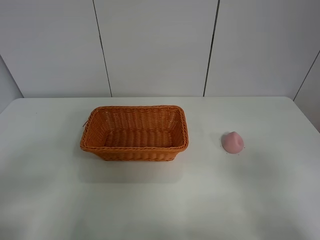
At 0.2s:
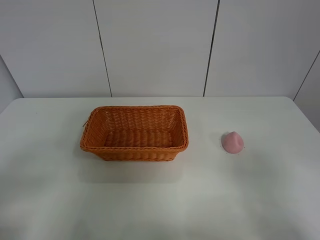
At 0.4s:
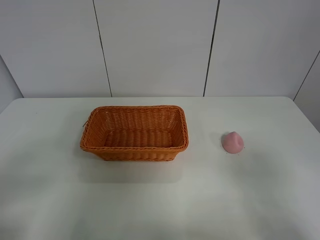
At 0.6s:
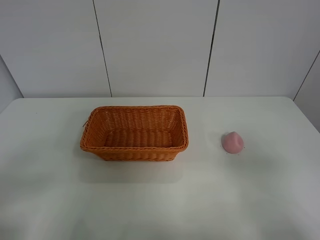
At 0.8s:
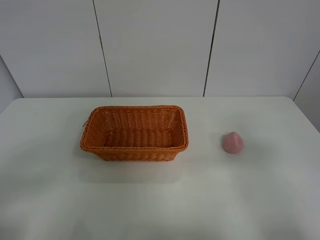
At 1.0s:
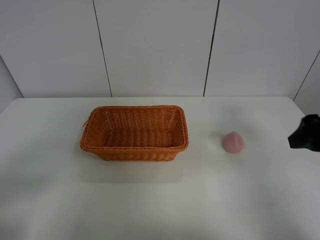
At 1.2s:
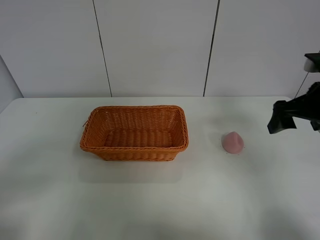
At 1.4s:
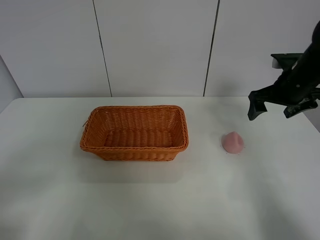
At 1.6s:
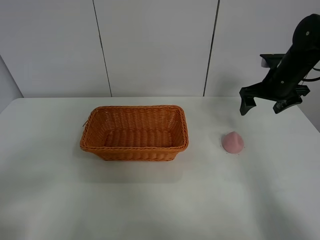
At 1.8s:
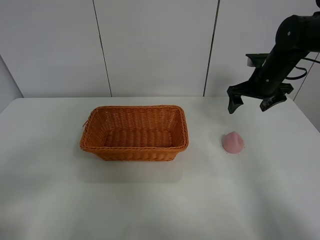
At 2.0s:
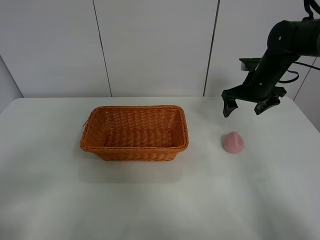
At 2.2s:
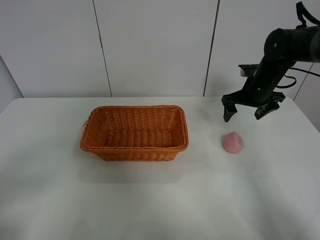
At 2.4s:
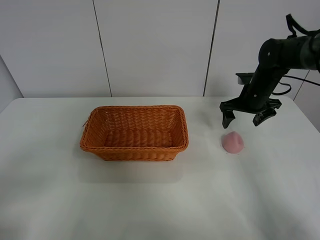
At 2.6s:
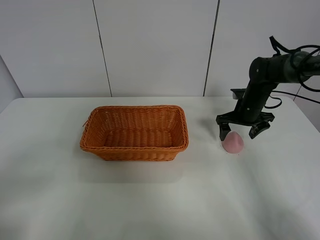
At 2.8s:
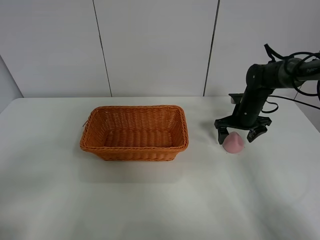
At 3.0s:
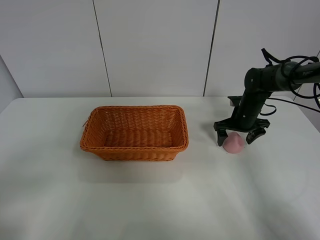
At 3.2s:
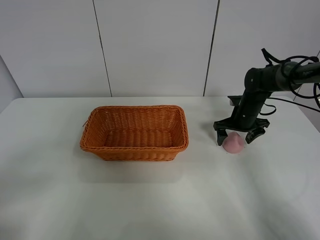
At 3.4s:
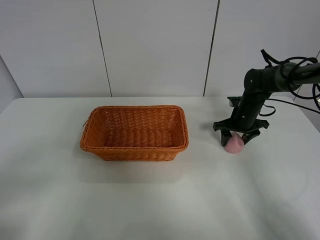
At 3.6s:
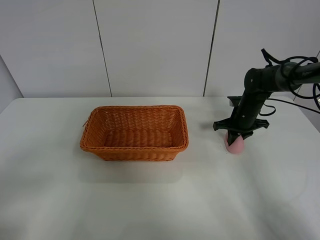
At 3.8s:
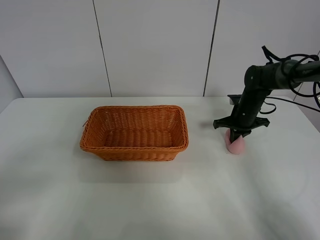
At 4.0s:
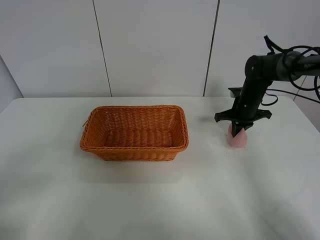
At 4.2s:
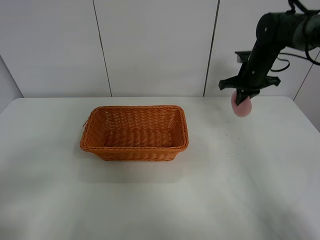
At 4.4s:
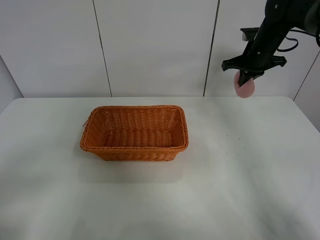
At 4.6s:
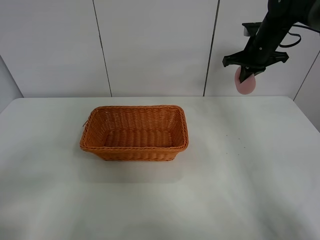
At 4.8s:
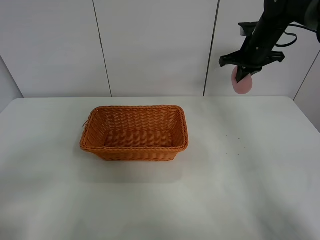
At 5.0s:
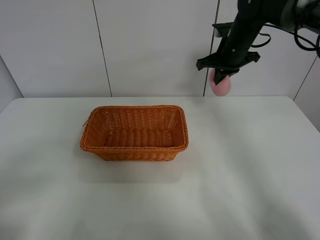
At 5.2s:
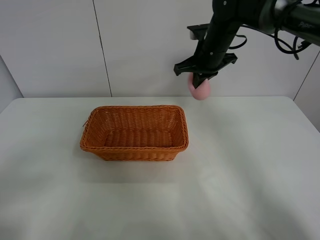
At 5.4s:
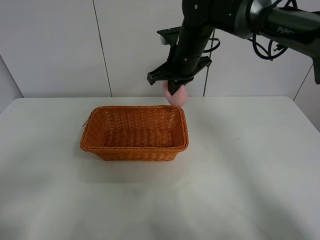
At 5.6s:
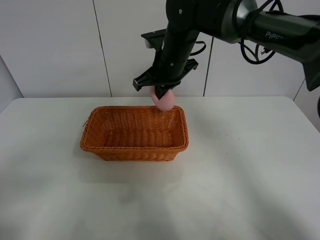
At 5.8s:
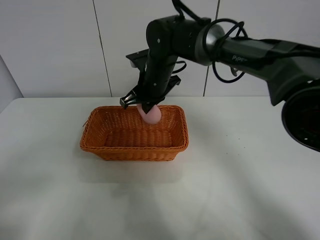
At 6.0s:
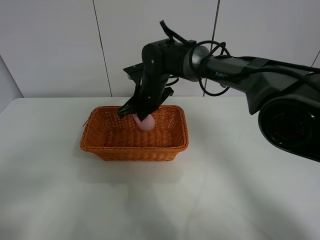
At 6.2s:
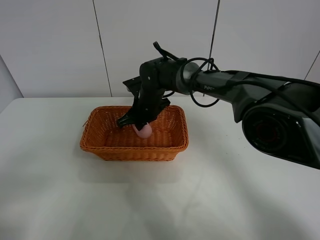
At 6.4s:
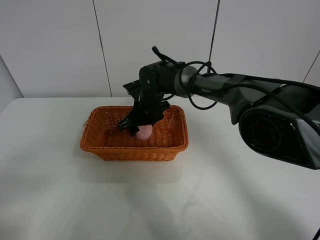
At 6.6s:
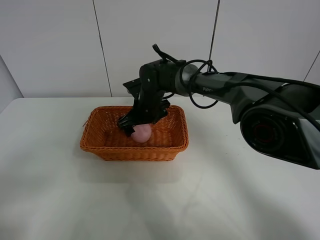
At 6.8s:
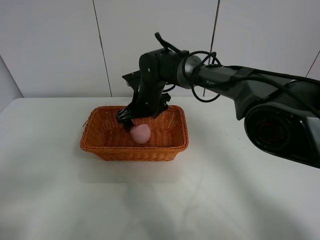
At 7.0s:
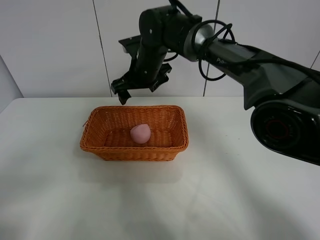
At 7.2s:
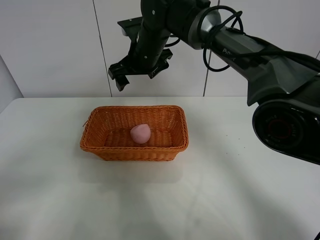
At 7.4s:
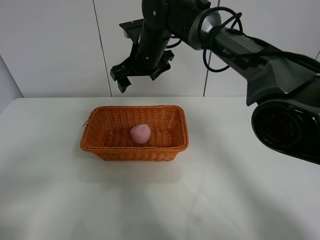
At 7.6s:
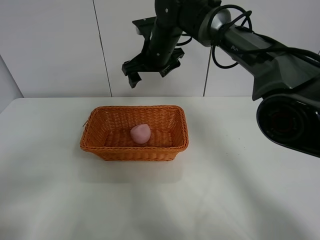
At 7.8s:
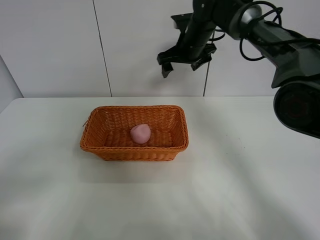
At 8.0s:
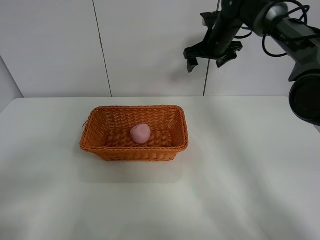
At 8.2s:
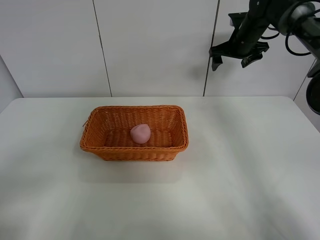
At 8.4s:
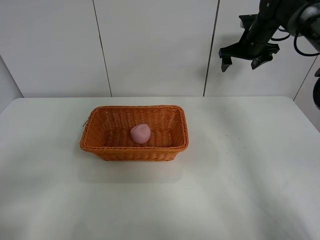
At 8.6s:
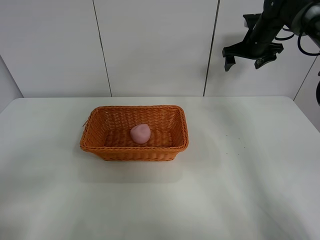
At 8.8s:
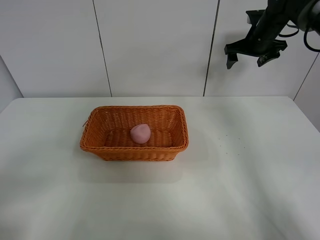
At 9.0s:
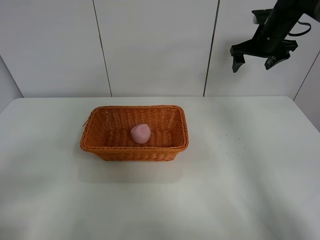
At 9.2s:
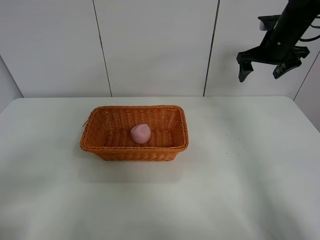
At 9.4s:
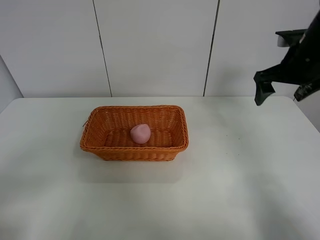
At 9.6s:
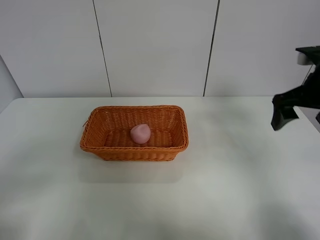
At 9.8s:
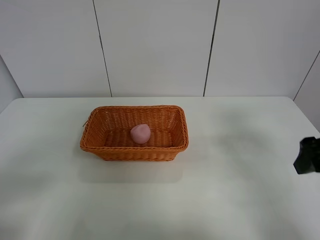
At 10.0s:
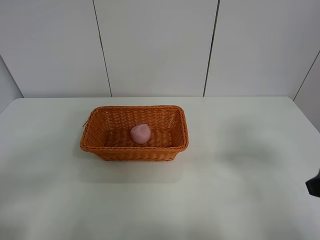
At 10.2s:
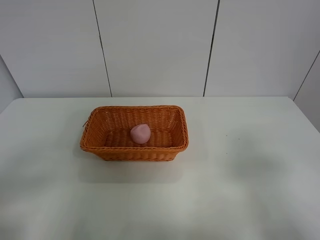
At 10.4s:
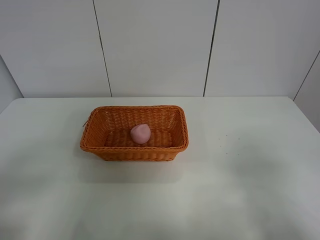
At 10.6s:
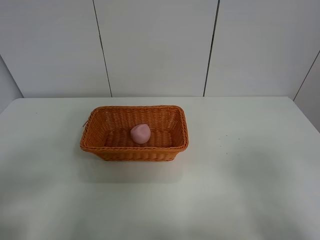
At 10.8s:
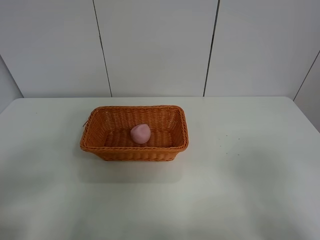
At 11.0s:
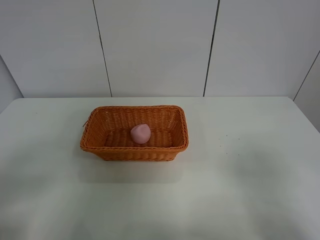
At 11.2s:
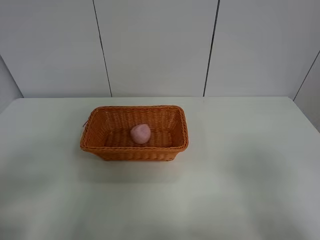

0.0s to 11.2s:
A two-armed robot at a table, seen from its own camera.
Step, 0.0s to 3.6s: Grasp the peach with right gripper.
Step, 3.8s to 7.6s: Place the peach in the basket with right gripper.
0.0s to 1.6s: The right gripper heads forward, covering some 40 cm.
1.6s to 3.2s: The right gripper shifts some 15 cm downward.
3.2s to 4.8s: The right gripper goes about 20 cm upward, and closes its fingers.
4.8s to 6.4s: The right gripper heads to the left and downward, covering approximately 30 cm, and opens.
6.4s to 8.0s: The right gripper heads to the right, upward and forward, covering some 25 cm.
8.0s to 9.6s: The right gripper travels backward and to the right by approximately 30 cm.
9.6s to 11.2s: The right gripper shifts some 25 cm backward.
